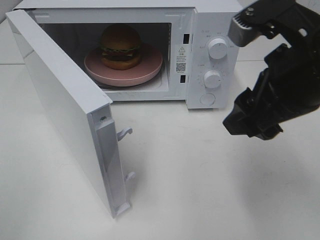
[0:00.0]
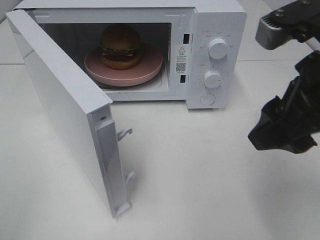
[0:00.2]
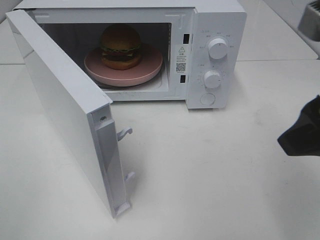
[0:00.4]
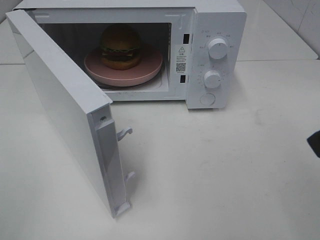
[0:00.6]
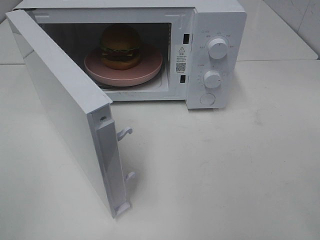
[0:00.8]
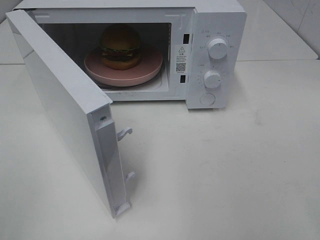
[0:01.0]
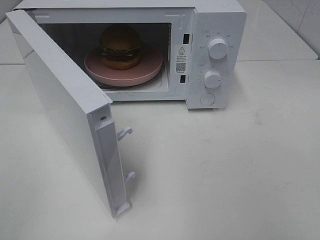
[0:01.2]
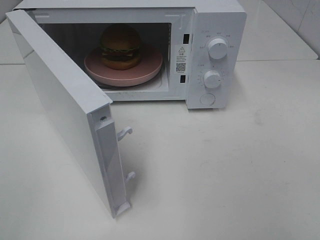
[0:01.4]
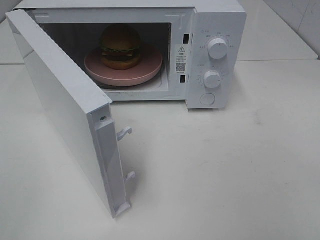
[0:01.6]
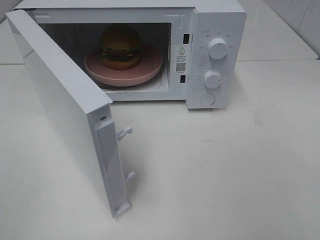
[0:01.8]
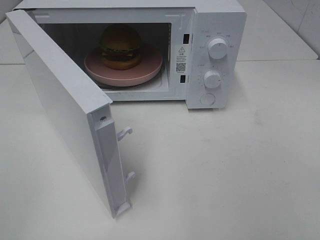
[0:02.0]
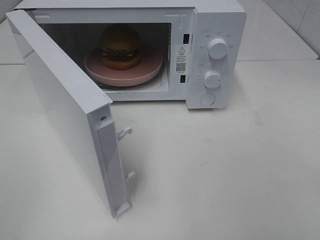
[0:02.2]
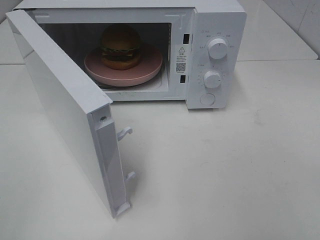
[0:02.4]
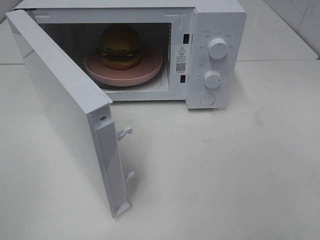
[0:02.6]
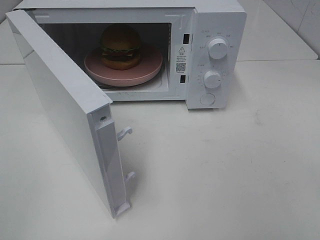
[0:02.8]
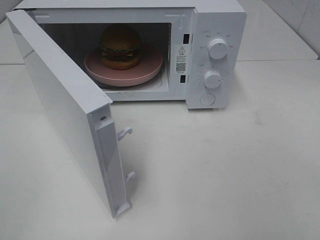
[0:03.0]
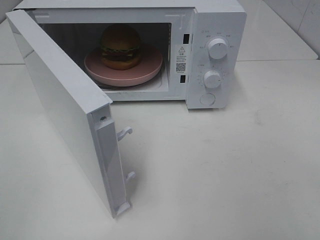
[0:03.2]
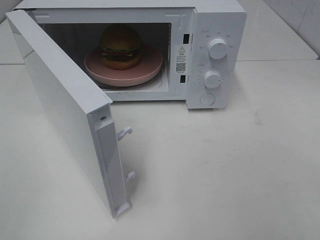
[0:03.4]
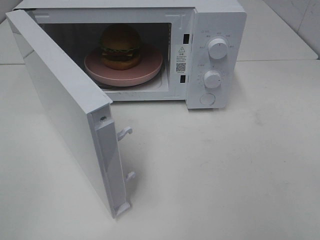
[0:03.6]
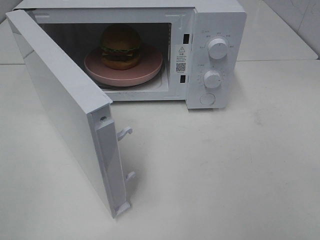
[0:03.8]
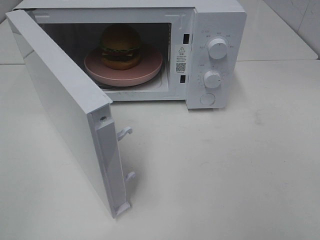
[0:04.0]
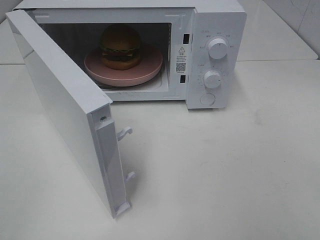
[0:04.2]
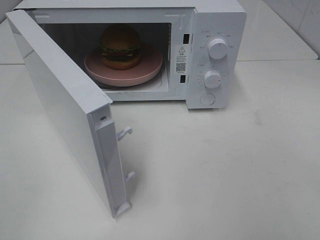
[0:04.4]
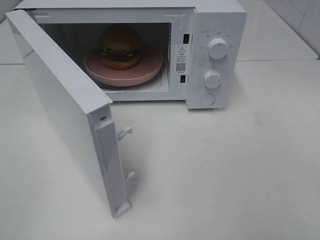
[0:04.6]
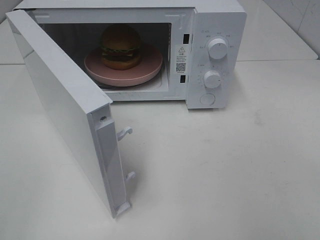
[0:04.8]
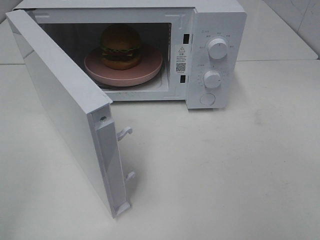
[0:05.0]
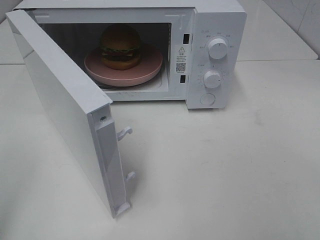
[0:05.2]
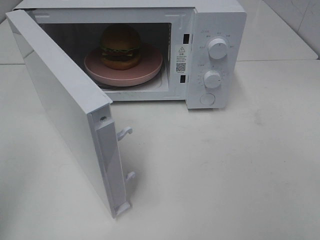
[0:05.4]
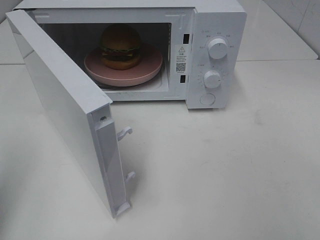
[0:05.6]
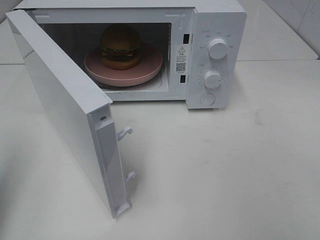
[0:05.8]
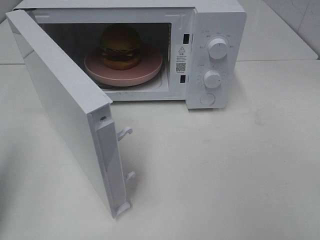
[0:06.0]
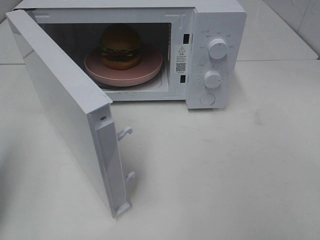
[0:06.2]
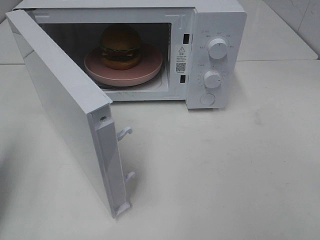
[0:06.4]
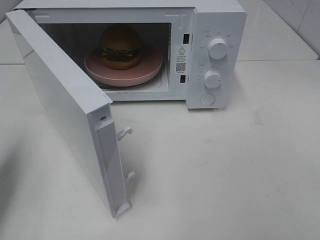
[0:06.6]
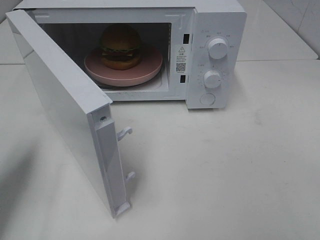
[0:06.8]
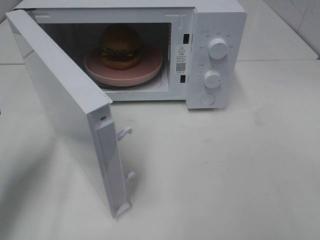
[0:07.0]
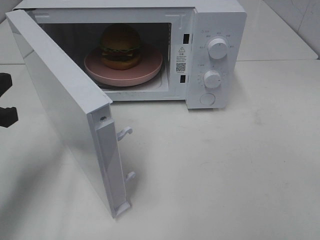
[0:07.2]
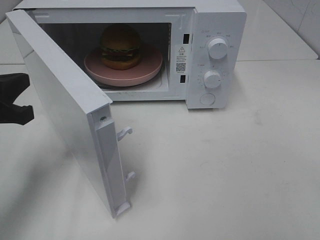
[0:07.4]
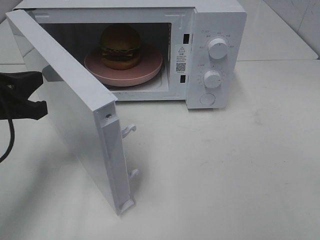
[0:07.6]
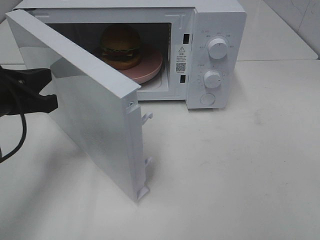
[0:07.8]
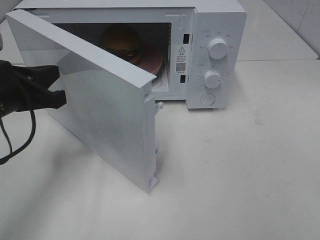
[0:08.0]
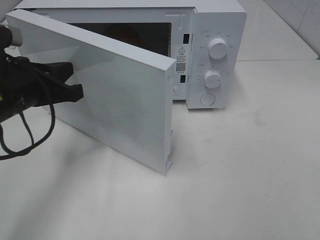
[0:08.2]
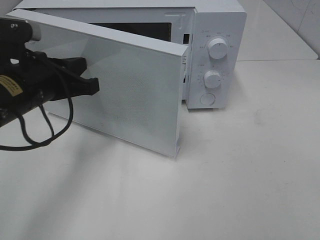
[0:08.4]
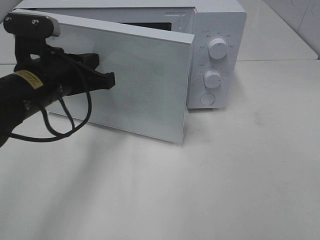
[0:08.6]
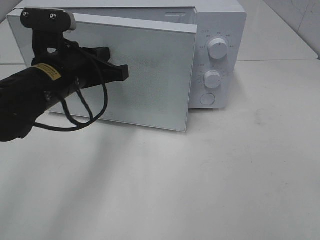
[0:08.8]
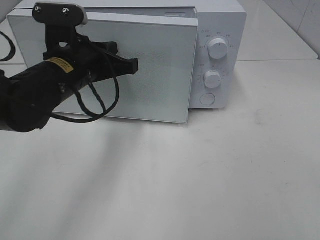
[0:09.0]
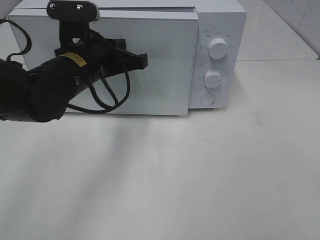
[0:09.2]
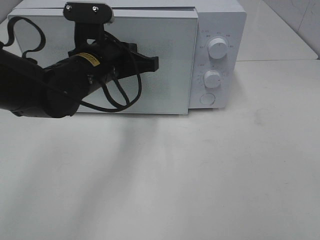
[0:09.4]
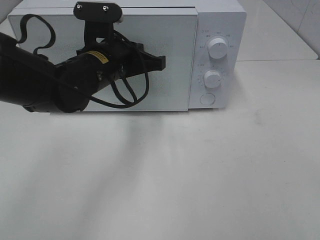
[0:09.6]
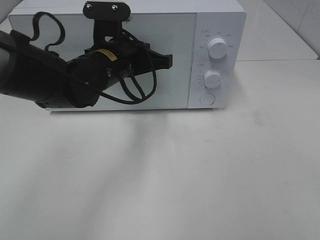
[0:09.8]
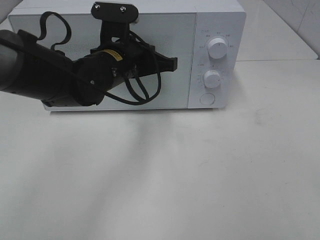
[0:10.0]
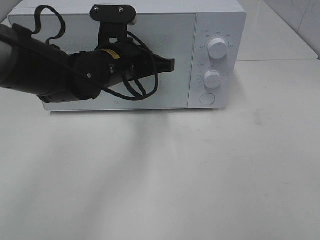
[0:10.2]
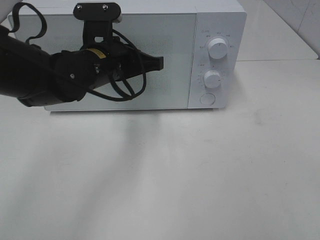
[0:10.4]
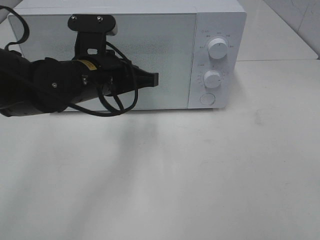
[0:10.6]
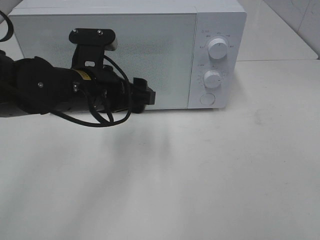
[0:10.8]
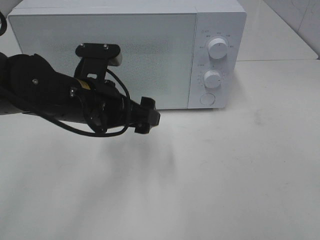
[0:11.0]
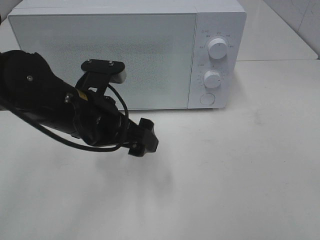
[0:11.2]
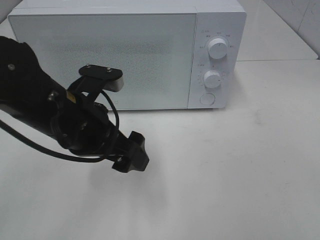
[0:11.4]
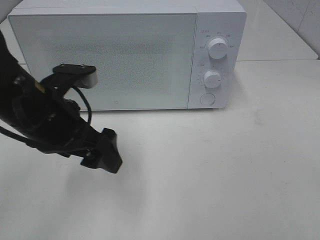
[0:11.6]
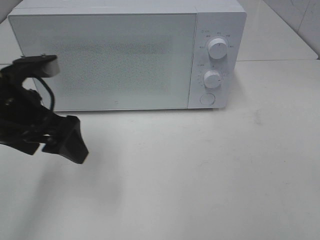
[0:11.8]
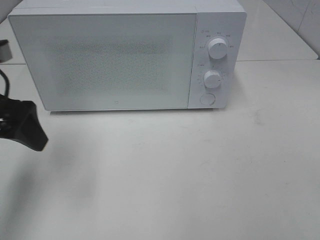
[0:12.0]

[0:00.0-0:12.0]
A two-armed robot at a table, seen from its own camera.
Task of the whole recording: Heat the burger.
Step, 0:00.0 to 0:10.8: Left hand: close the microwave door.
0:00.0 to 0:01.6: The right gripper shifts about 20 cm backward and to the right.
0:03.0 to 0:04.4: Both grippers stay about where they are.
0:04.4 to 0:06.0: The left gripper travels forward by some 15 cm, and closes its fingers.
0:06.0 to 0:07.6: The left gripper travels forward, to the right and downward by some 15 cm.
0:07.6 to 0:09.0: The left gripper moves to the right and forward, some 15 cm.
0:10.4 to 0:12.0: The left gripper heads to the left and backward, covering roughly 20 cm, and opens up.

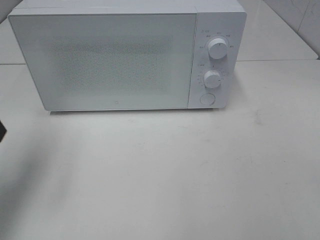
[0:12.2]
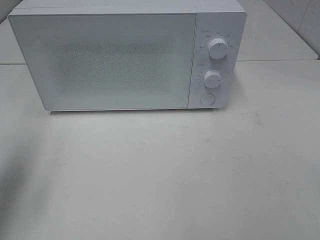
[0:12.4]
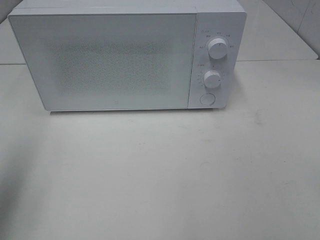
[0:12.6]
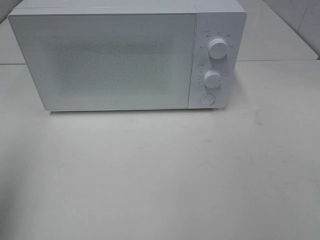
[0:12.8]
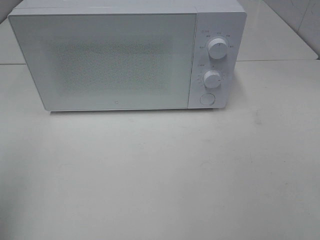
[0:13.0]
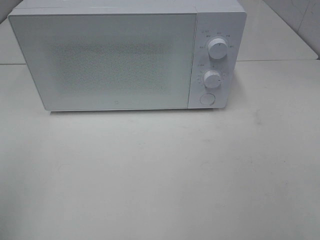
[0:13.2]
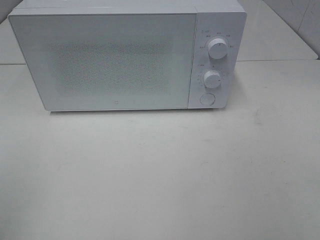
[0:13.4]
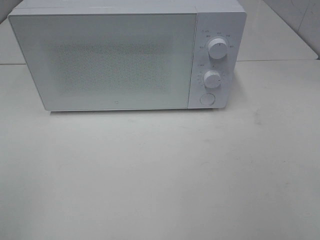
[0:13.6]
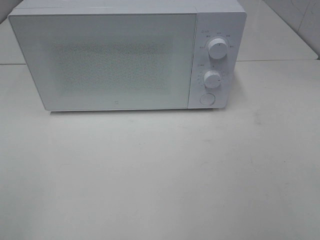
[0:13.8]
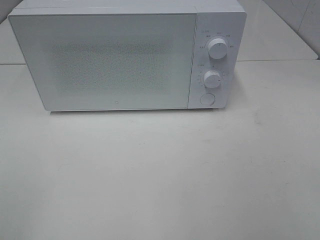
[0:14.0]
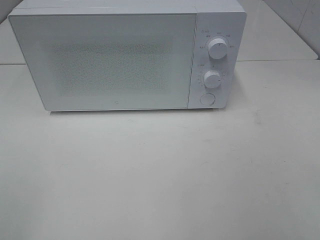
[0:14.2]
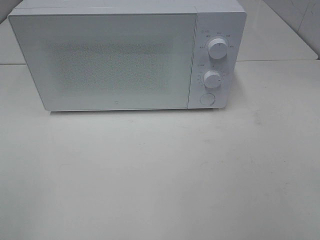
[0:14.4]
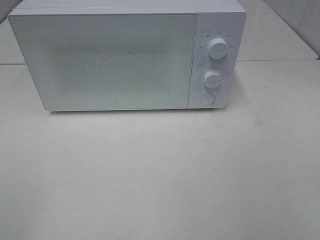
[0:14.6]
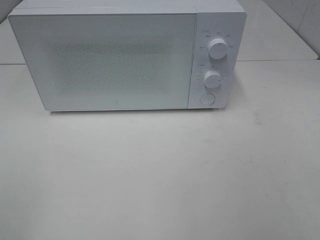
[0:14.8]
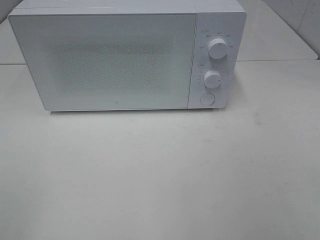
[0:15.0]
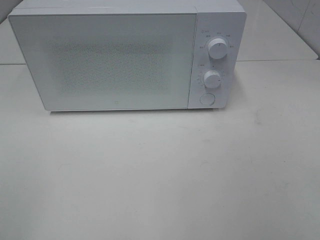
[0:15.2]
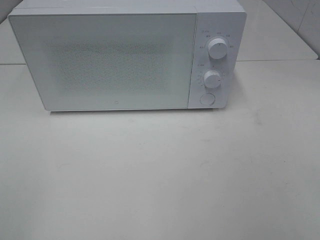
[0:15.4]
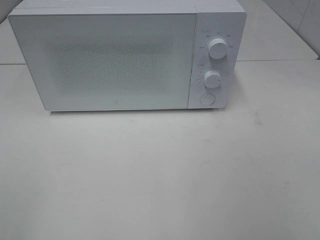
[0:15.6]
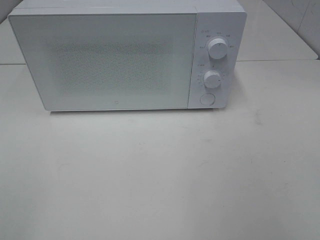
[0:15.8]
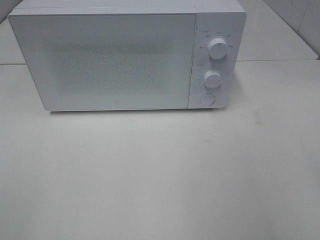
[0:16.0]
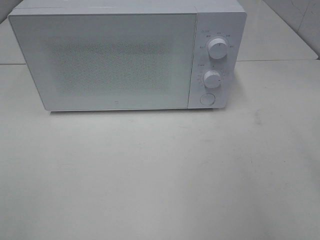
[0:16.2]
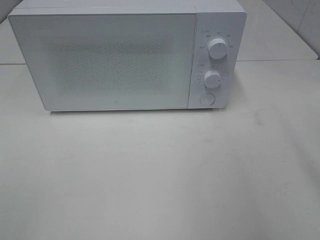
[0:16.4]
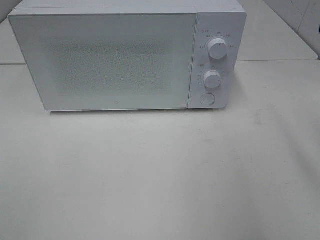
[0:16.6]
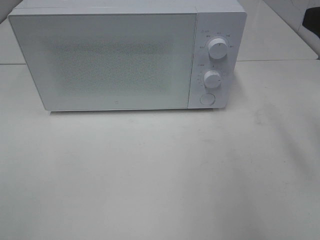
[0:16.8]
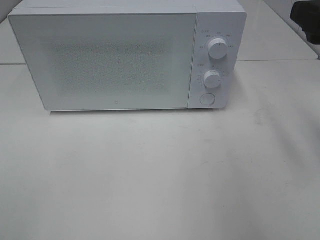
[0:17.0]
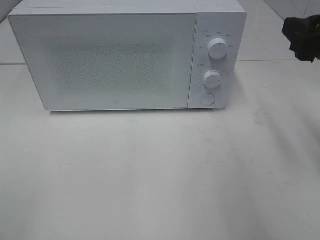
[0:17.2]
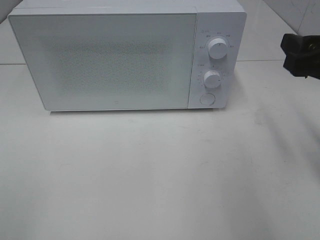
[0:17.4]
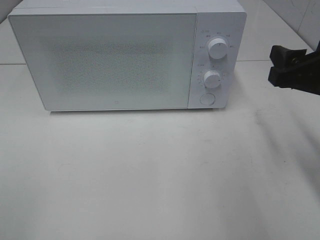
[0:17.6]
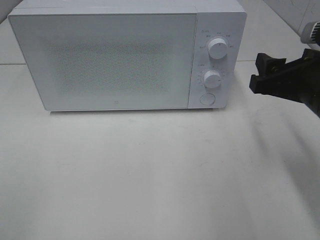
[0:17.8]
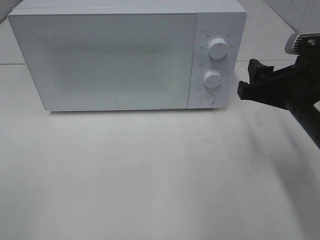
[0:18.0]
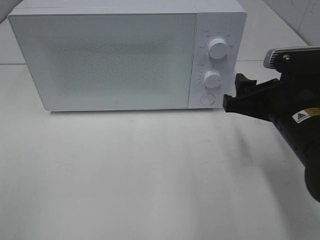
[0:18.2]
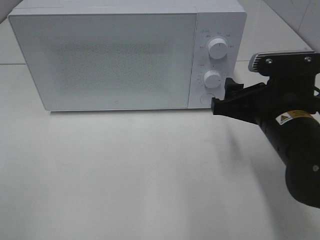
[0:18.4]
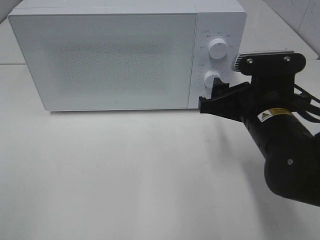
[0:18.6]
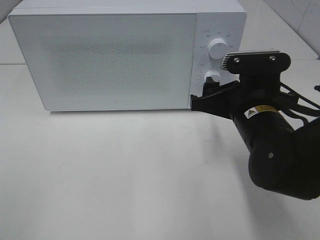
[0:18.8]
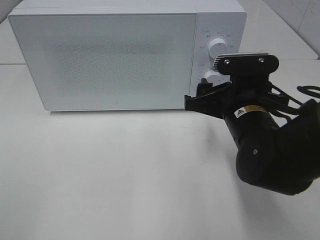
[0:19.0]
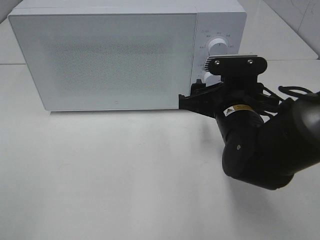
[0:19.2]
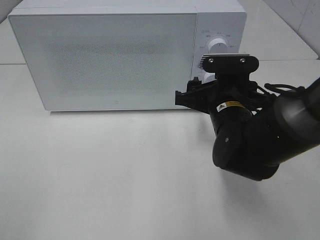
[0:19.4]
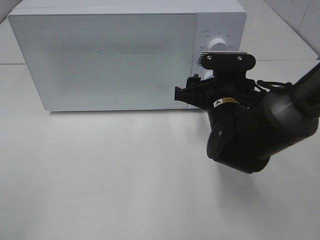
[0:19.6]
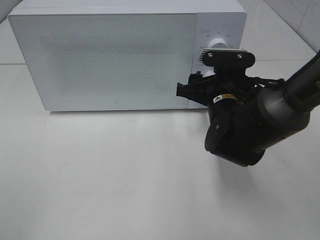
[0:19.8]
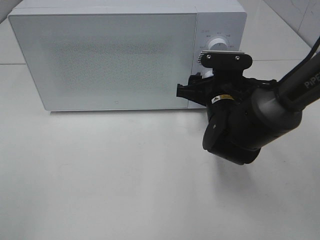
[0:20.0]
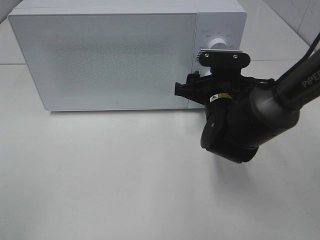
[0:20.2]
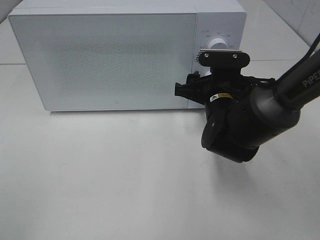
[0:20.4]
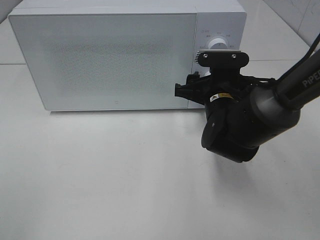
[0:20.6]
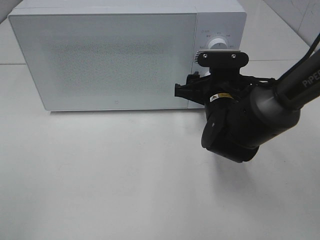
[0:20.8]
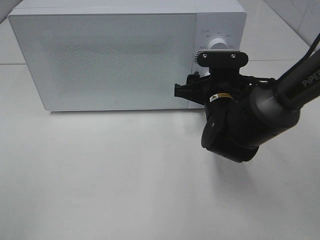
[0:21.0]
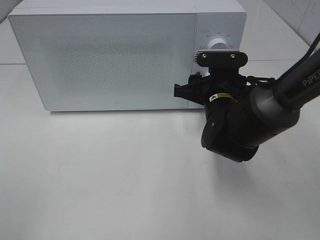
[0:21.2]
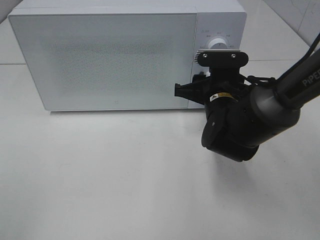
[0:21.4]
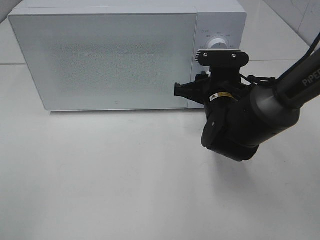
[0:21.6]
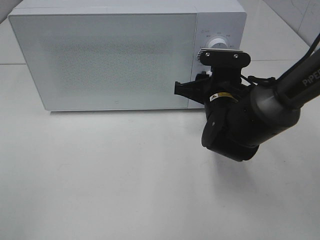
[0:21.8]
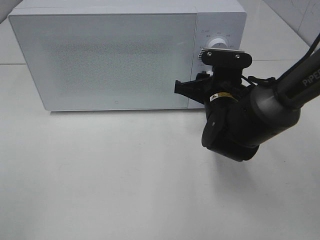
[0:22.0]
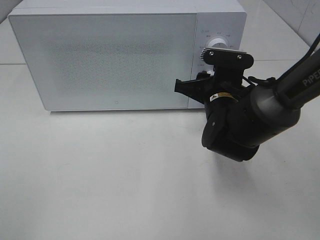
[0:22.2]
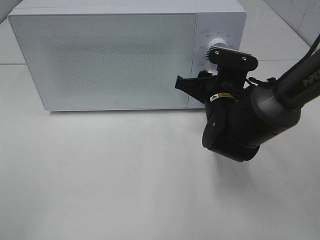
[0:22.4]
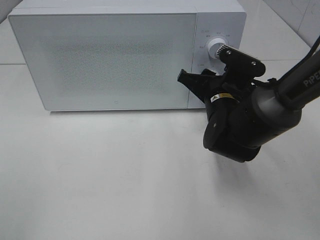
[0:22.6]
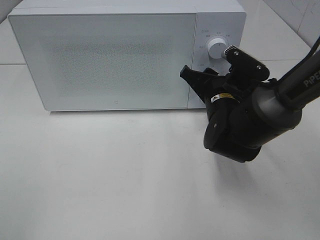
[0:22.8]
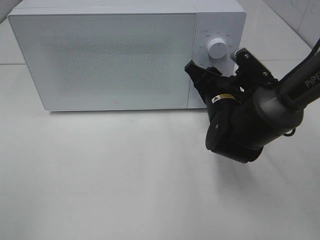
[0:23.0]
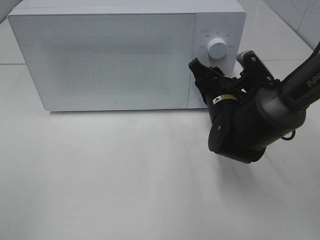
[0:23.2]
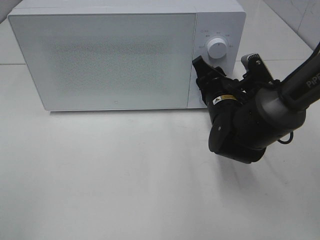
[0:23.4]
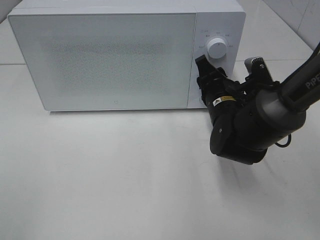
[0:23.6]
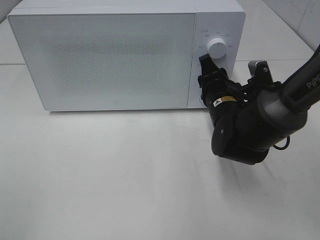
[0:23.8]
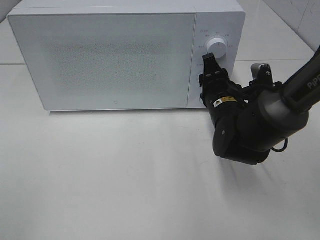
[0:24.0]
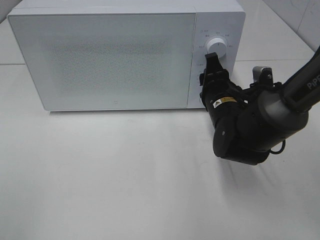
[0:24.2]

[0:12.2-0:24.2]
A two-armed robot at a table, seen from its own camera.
Task of the whole recording: Heat the burger.
0:12.2 to 0:13.8: The left gripper is displaced backward by some 25 cm.
0:13.8 to 0:15.2: Neither gripper changes place.
0:16.6 to 0:18.2: The right gripper moves downward and to the left, about 15 cm.
0:18.2 to 0:19.8: The right gripper goes about 10 cm forward, to the left and downward.
0:19.8 to 0:21.2: Both grippers stay about where they are.
